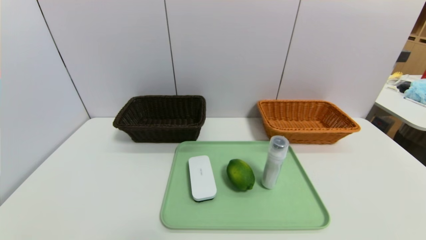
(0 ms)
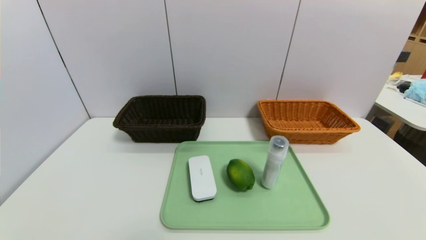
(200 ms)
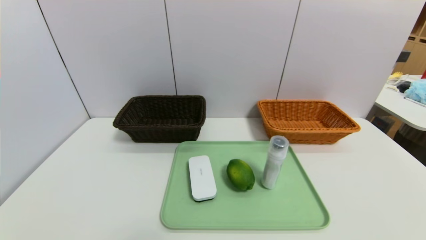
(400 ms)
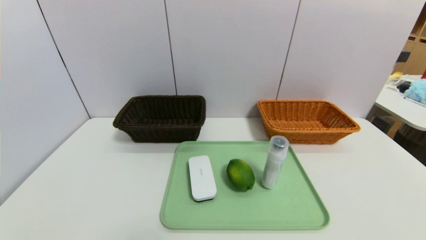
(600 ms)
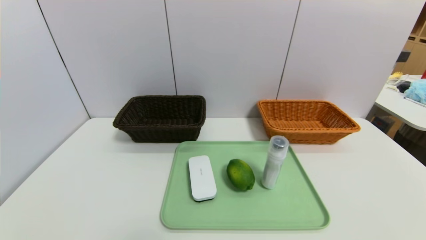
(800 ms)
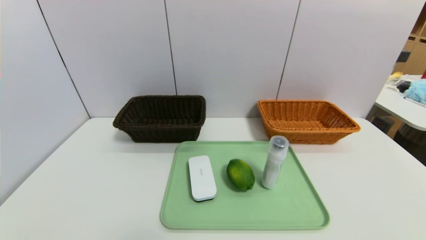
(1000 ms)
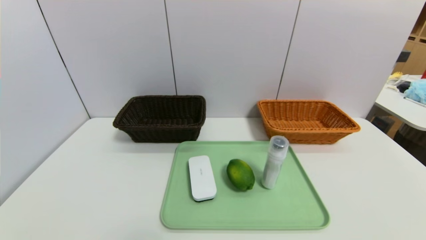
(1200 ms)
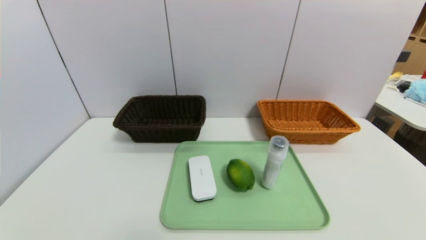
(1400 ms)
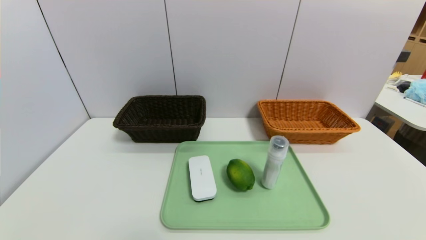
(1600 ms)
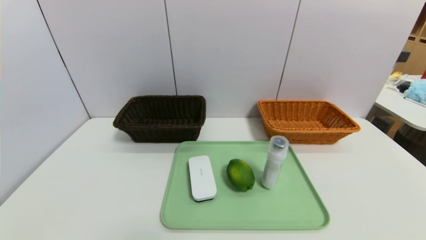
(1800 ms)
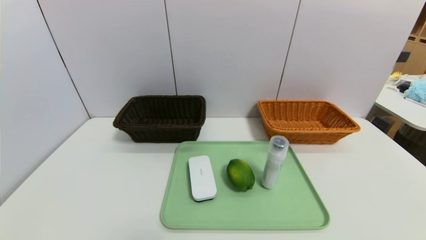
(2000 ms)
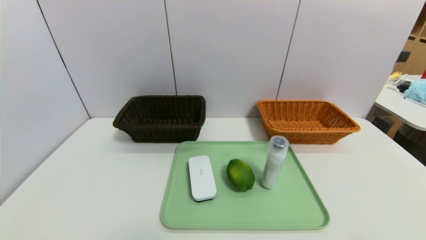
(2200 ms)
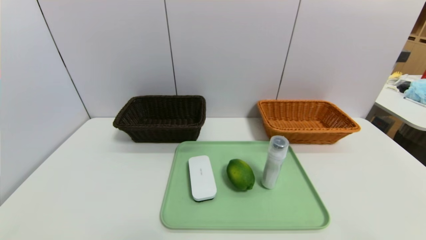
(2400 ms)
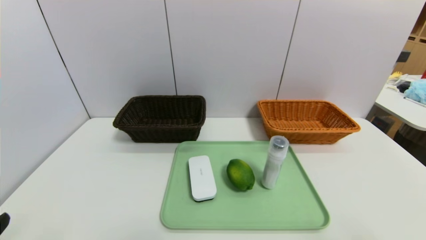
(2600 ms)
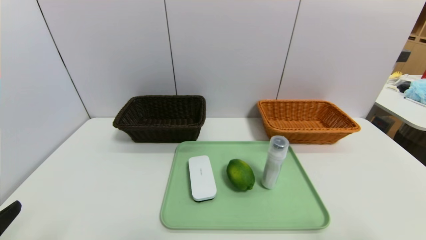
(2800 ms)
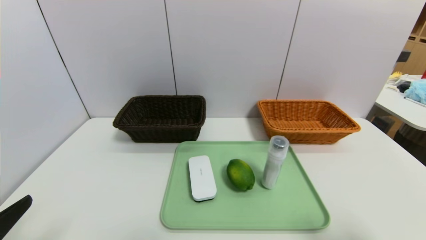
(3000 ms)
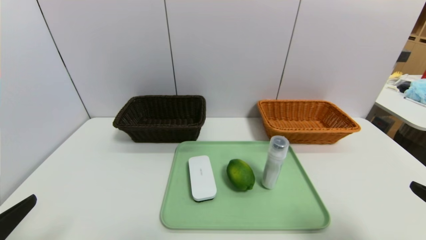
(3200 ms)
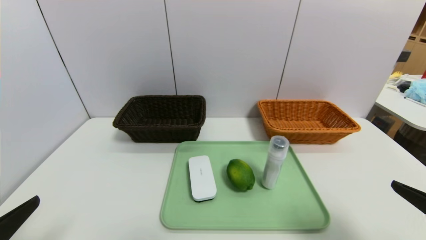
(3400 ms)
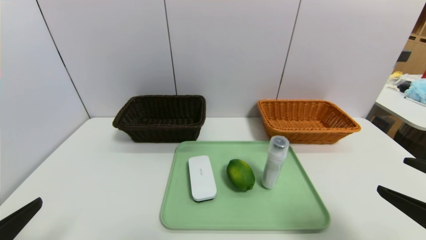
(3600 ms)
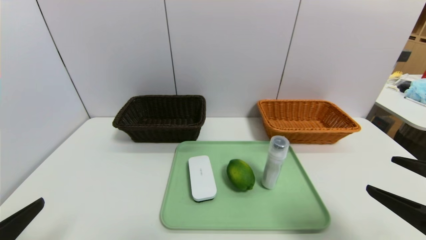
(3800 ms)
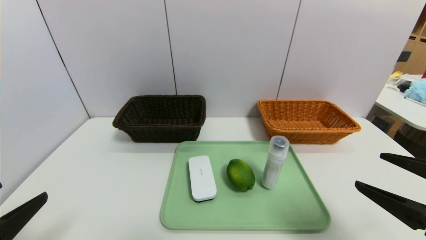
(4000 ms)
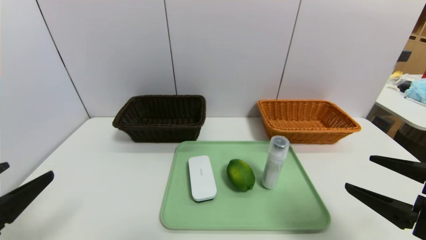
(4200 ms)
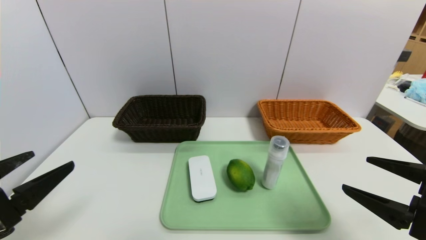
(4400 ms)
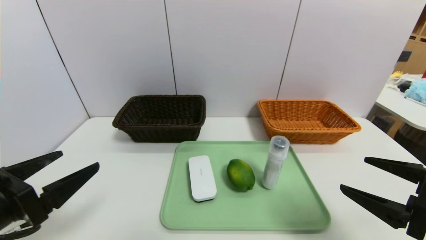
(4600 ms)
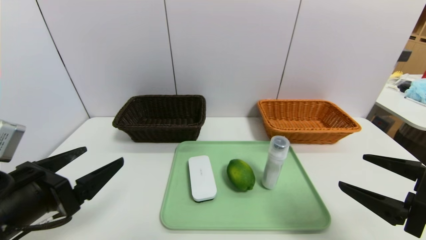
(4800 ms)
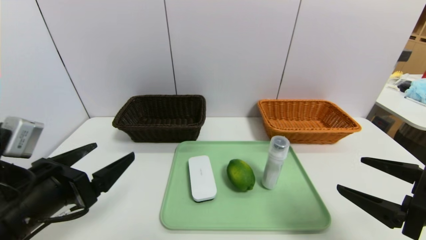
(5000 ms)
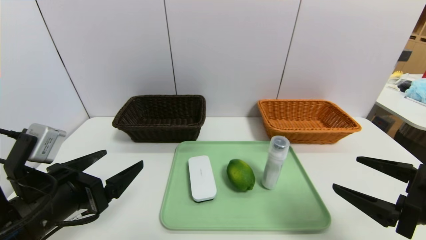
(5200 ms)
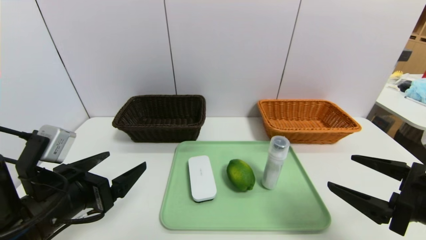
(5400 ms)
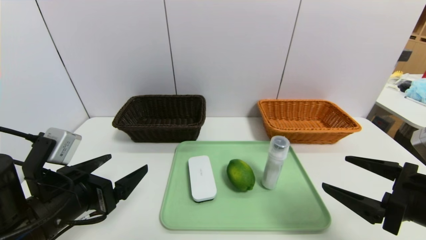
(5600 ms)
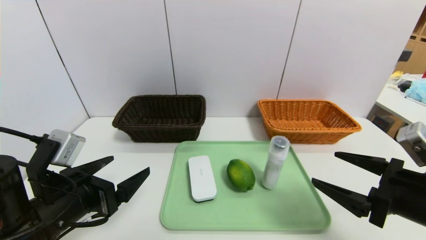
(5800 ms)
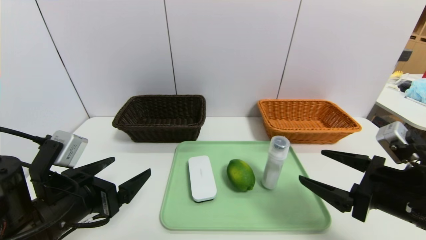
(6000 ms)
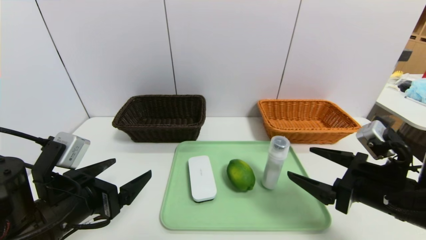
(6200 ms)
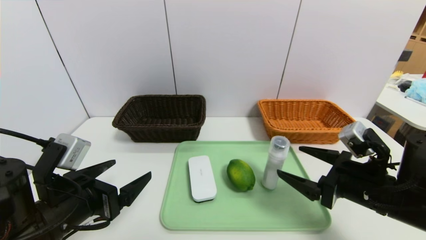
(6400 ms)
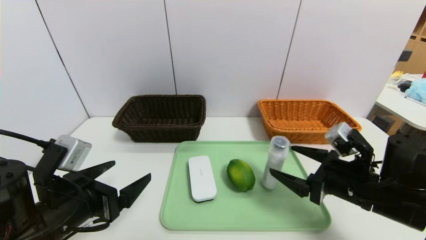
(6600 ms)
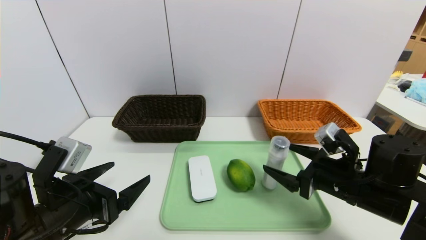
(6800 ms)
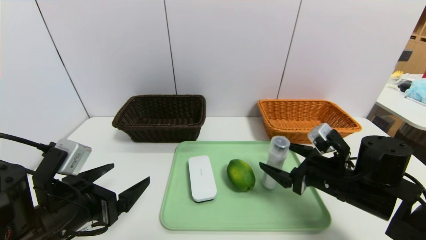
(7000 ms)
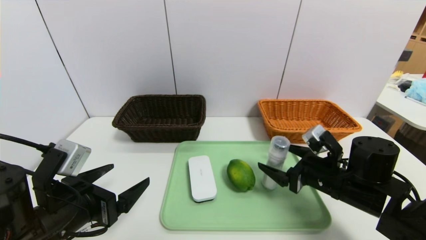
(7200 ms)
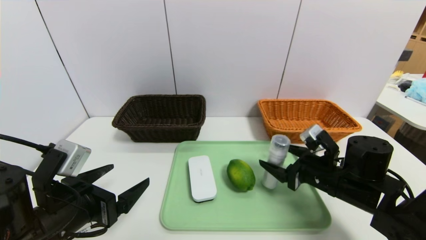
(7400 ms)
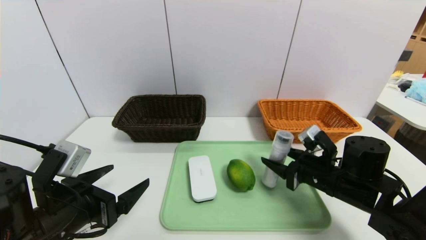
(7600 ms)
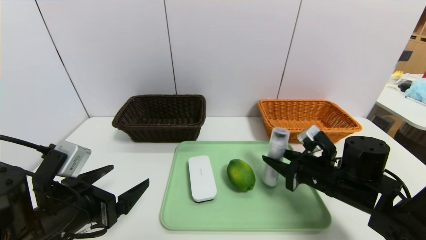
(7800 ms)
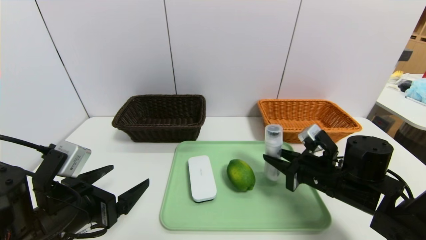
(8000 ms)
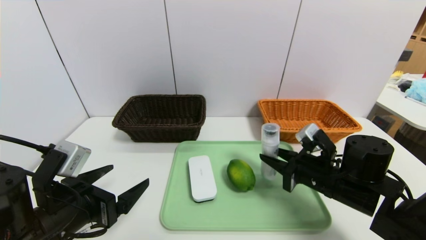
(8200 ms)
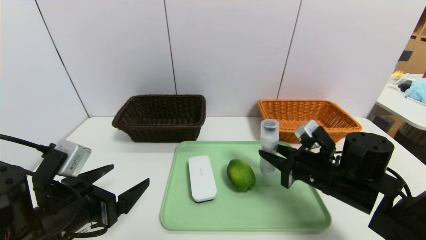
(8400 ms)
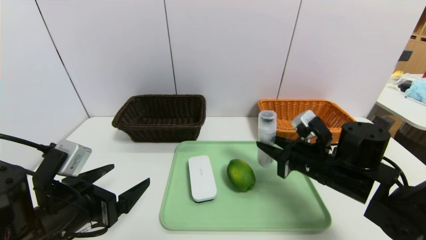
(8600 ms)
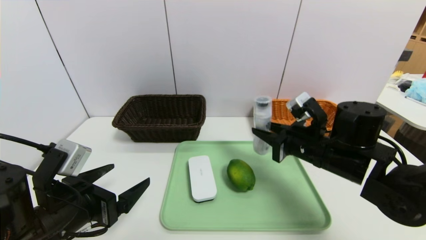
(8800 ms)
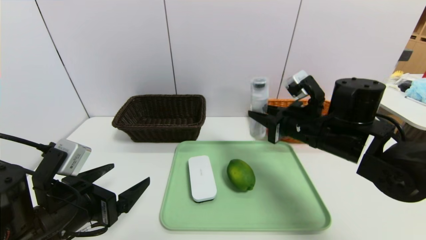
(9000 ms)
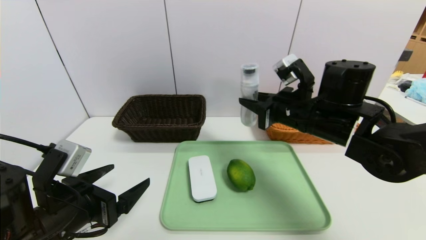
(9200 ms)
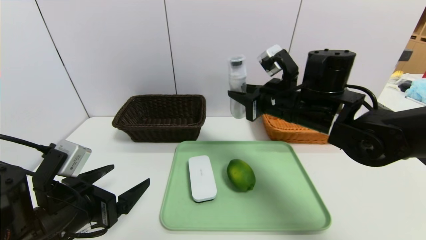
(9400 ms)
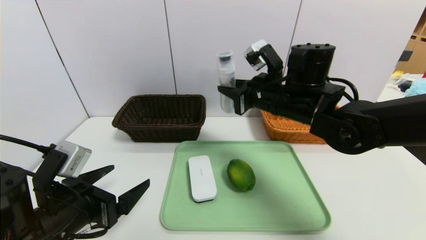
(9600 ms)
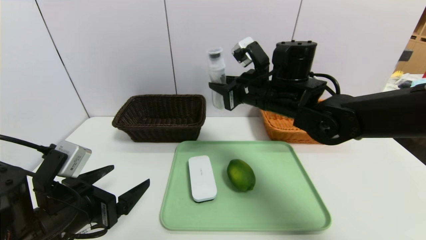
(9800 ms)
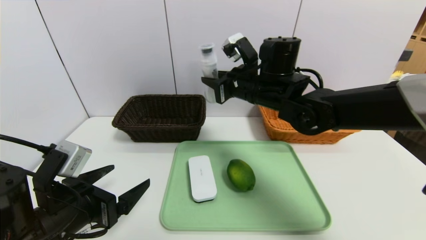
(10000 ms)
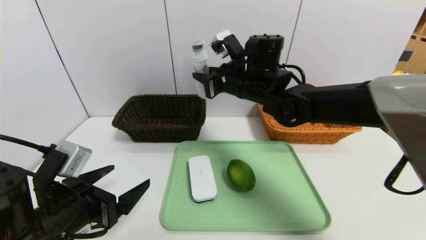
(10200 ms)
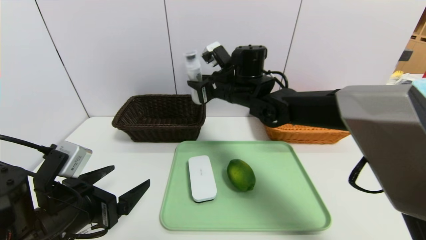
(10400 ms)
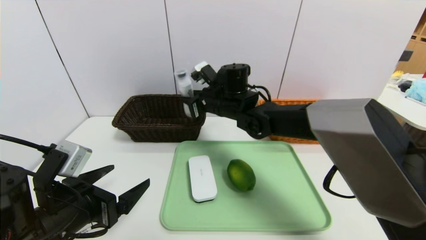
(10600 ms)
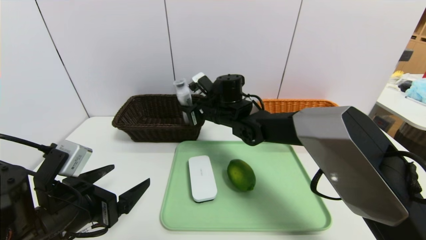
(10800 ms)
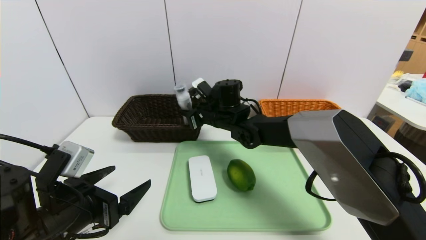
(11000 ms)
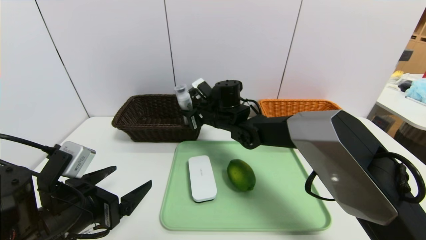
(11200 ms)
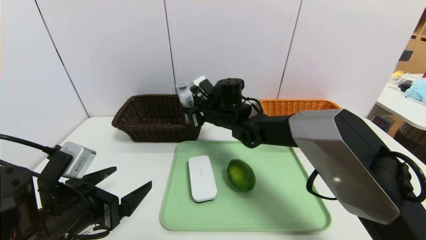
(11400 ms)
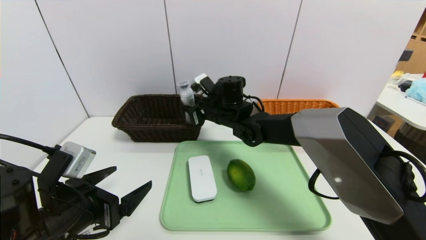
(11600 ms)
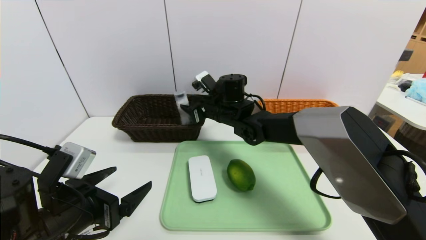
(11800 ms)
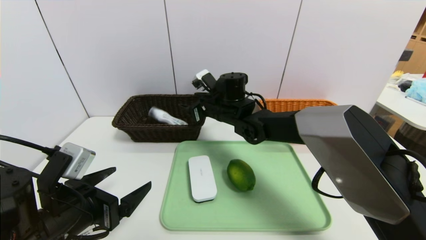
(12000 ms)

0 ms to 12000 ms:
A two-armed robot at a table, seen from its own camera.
Task of the whole recording: place the food in the right basket with the right gripper, and place the non food items in the left basket with the left gripper.
1600 ms to 3000 ms: The left gripper goes roughly 10 cm upward and forward.
3000 ms to 4400 ms: The two grippers go roughly 5 cm forward.
4400 ms to 6000 ms: The left gripper travels to the right and forward by some 10 cm. Meanwhile the right gripper moves approximately 5 cm.
6000 ms to 7600 ms: The right gripper moves forward and downward, some 10 cm, and closes.
7600 ms to 9000 ms: The right gripper heads upward, covering some 10 cm, and closes.
9000 ms to 10400 ms: The right gripper moves to the left and forward, about 20 cm.
10400 ms to 12000 ms: The right gripper heads downward, covering roughly 5 cm, and opens up.

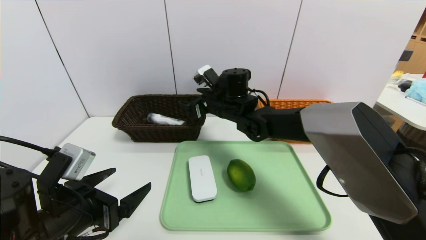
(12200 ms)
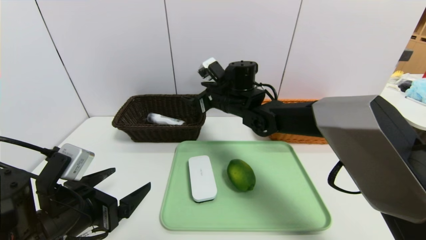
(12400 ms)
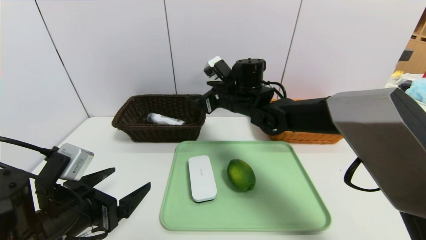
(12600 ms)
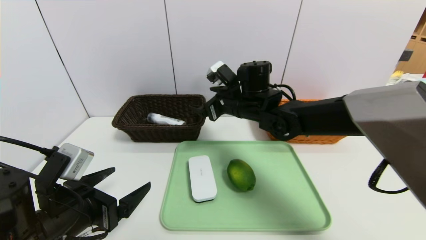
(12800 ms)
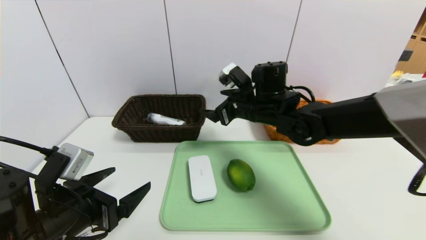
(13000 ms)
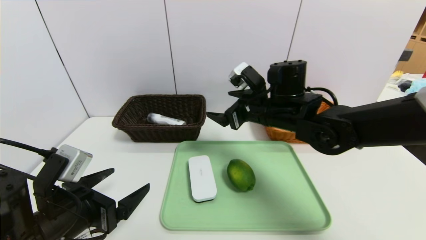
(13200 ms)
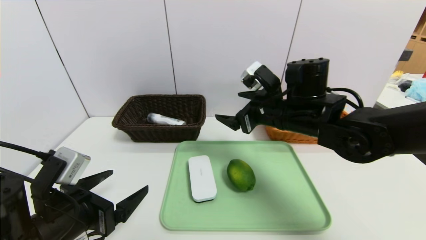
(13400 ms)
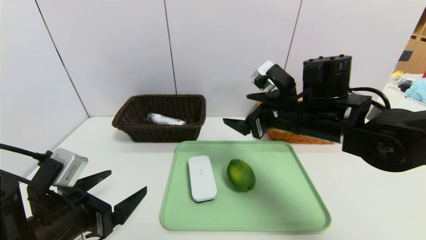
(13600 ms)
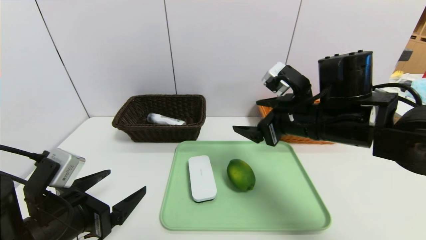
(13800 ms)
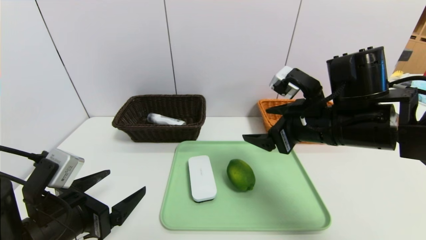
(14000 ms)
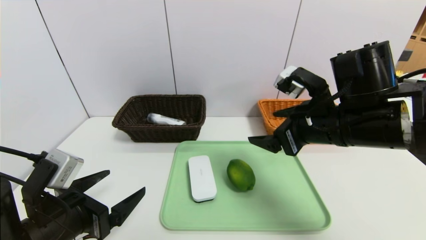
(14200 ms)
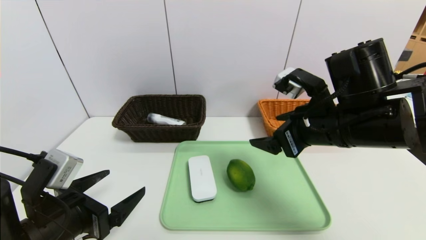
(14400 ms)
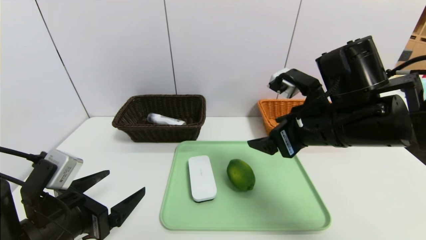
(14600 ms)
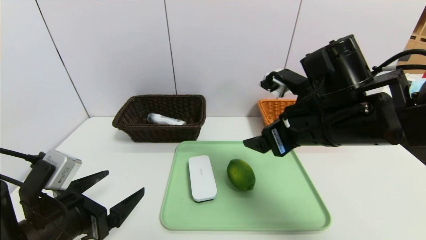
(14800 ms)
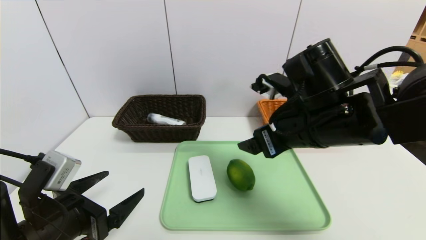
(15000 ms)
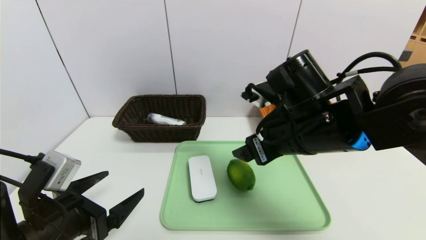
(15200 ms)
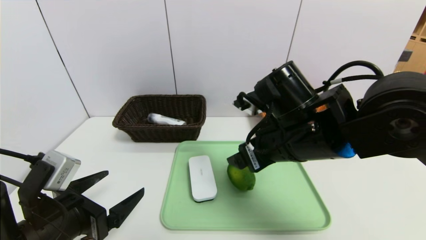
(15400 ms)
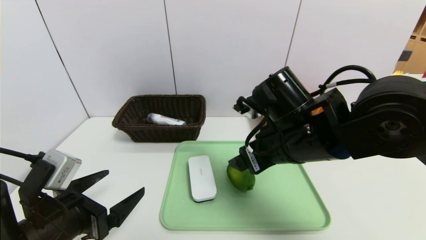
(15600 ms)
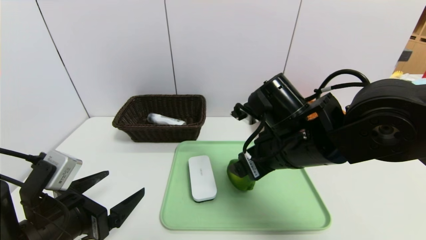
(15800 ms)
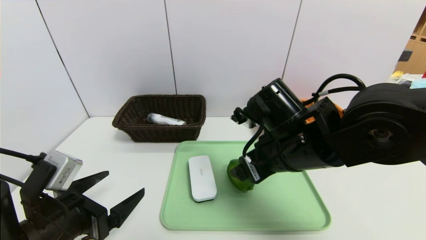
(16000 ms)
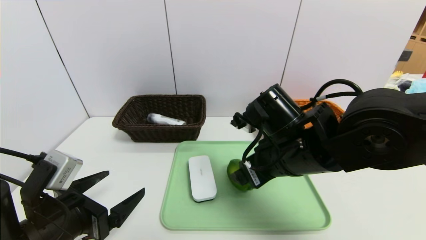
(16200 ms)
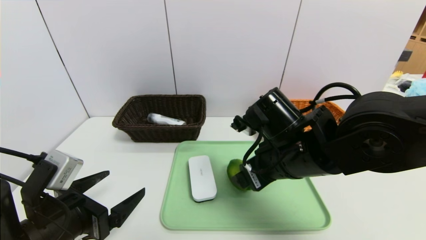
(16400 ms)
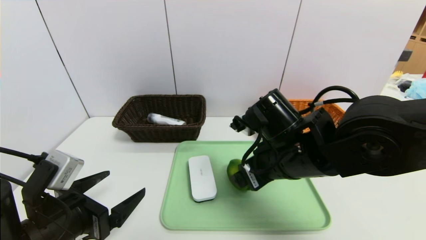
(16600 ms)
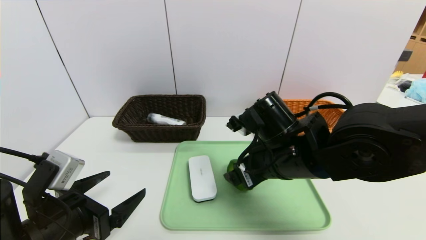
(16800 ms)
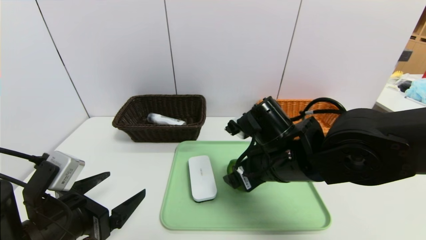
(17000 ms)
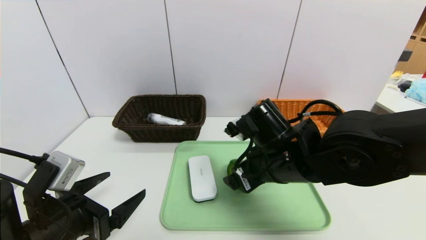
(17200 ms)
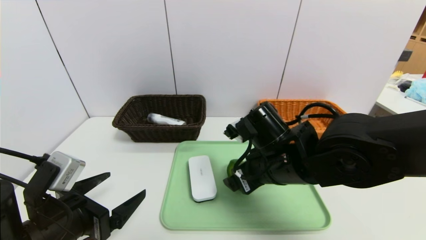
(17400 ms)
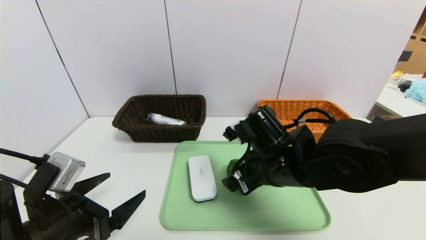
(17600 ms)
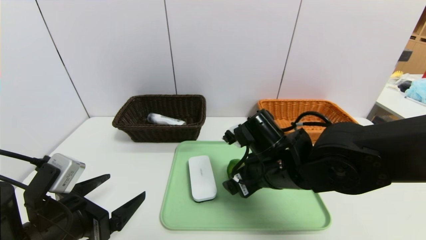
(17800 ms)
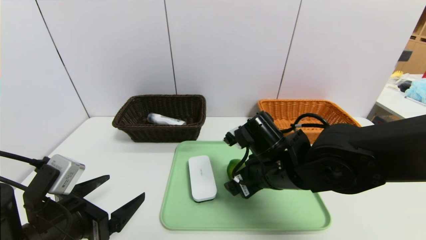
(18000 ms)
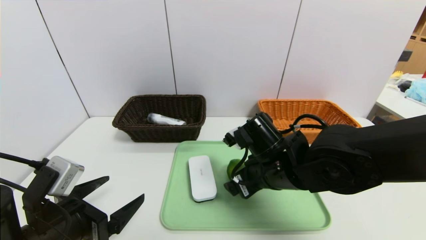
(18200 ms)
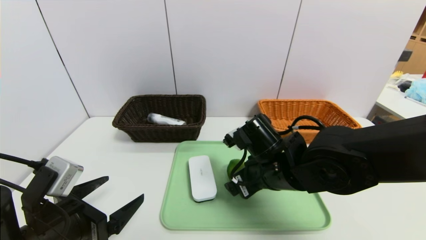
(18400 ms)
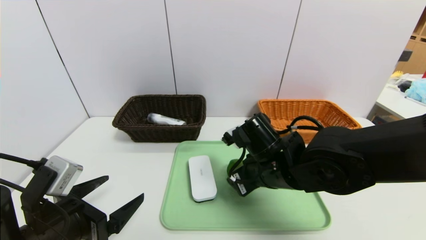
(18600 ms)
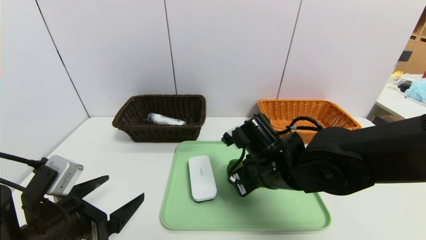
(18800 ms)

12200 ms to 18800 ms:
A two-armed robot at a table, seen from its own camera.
Task of the whole recording: place the food in the right basket with the right gripper, and place the non food items in the left basket with the left gripper.
12200 ms to 13800 ms: The right gripper is displaced backward and to the right by about 20 cm.
13800 ms to 15400 ms: The right gripper heads to the left, covering approximately 5 cm.
15400 ms to 17200 ms: The right gripper shifts roughly 5 cm downward.
17200 ms to 18800 ms: The right gripper closes its fingers.
